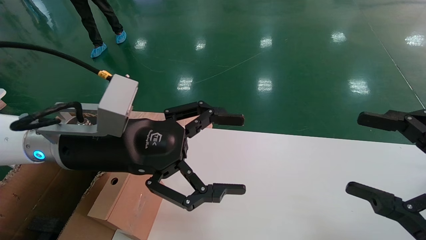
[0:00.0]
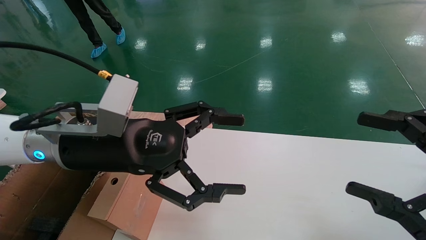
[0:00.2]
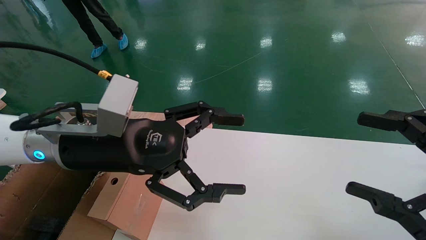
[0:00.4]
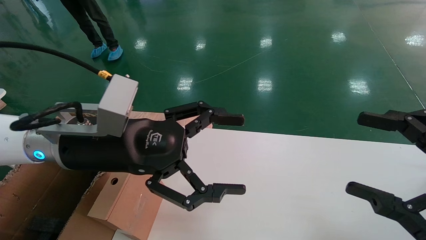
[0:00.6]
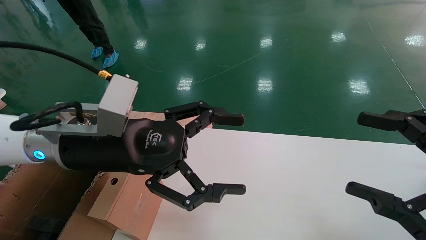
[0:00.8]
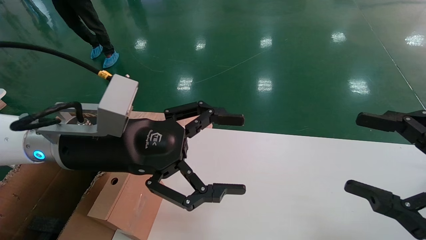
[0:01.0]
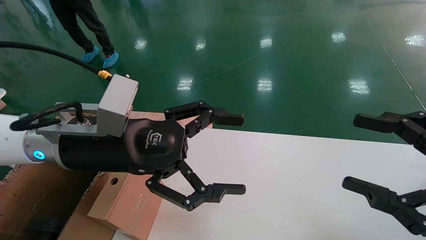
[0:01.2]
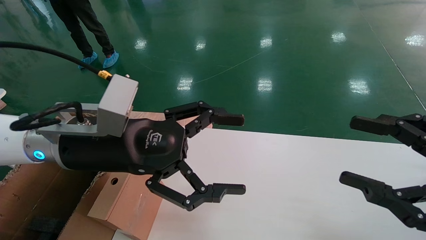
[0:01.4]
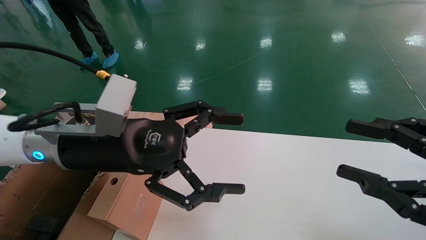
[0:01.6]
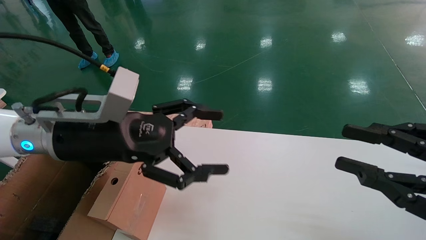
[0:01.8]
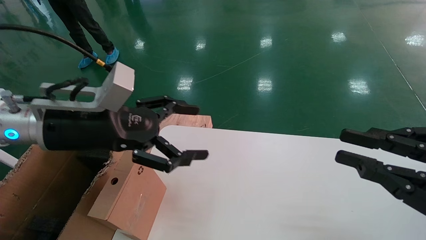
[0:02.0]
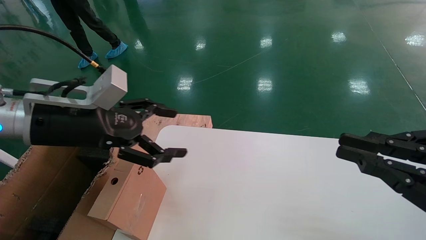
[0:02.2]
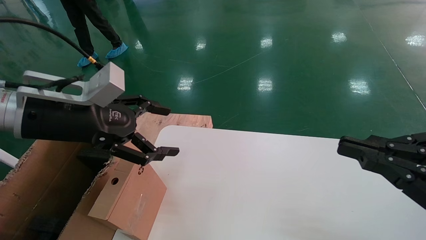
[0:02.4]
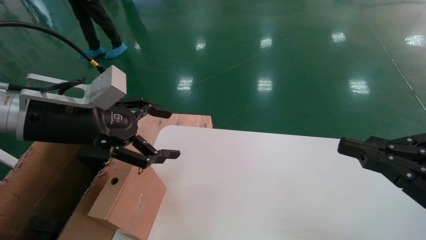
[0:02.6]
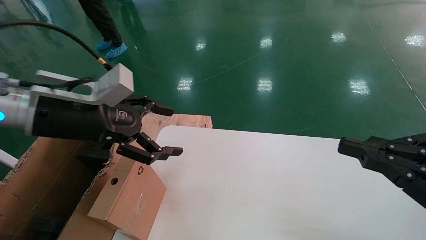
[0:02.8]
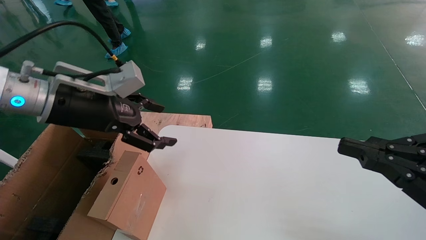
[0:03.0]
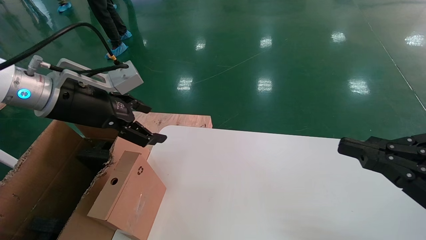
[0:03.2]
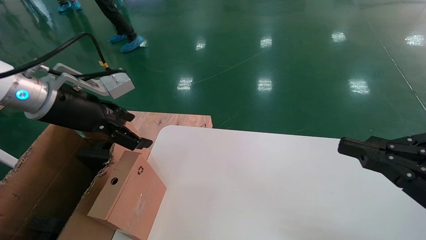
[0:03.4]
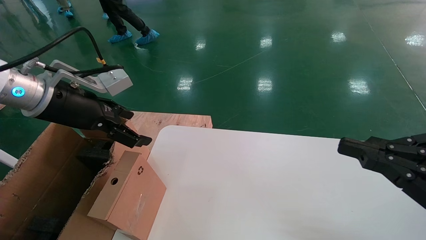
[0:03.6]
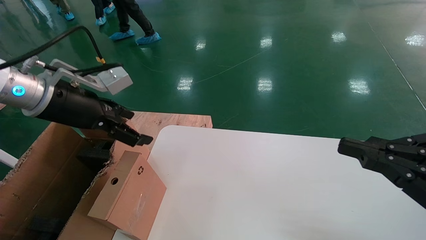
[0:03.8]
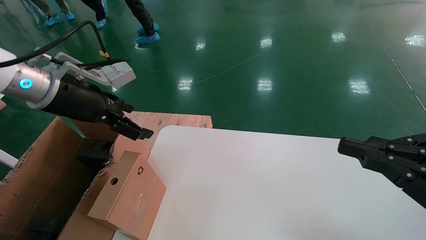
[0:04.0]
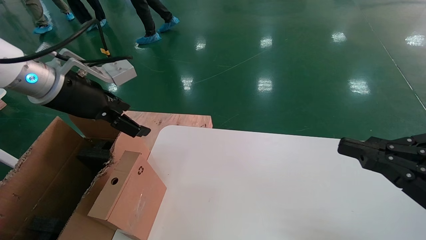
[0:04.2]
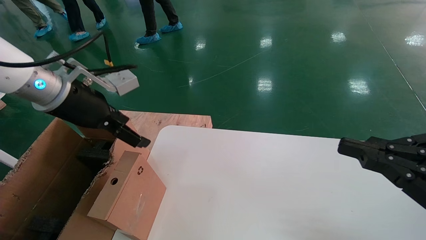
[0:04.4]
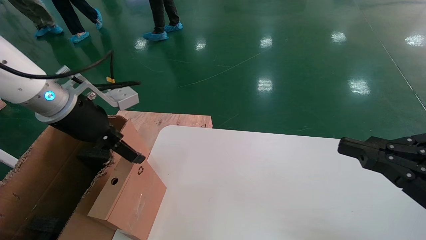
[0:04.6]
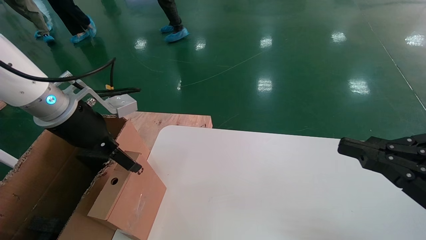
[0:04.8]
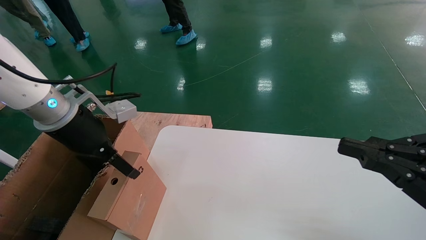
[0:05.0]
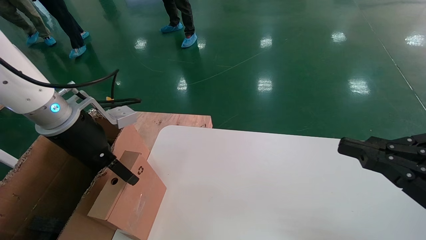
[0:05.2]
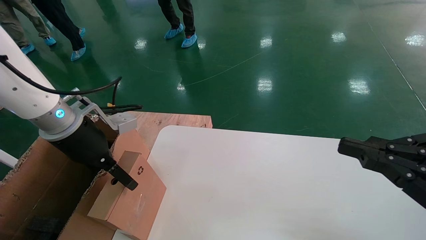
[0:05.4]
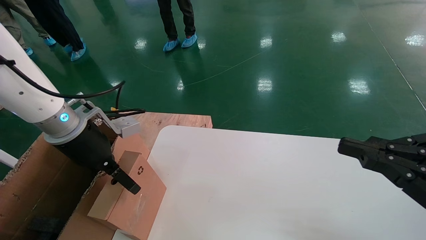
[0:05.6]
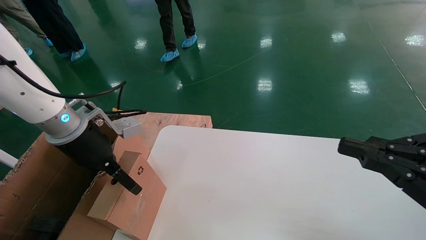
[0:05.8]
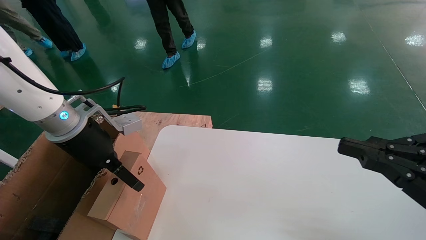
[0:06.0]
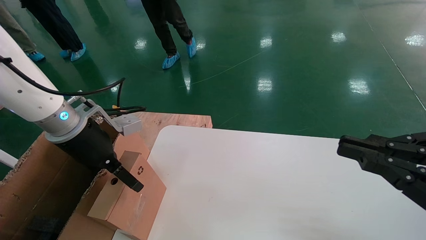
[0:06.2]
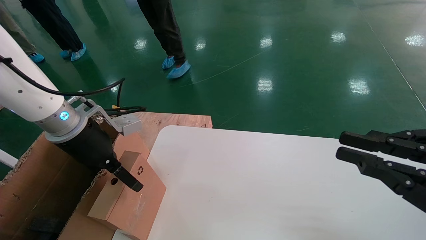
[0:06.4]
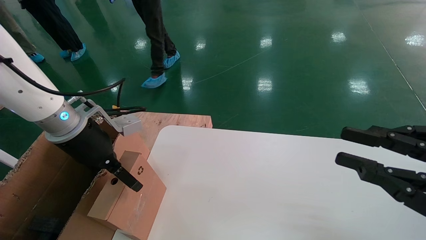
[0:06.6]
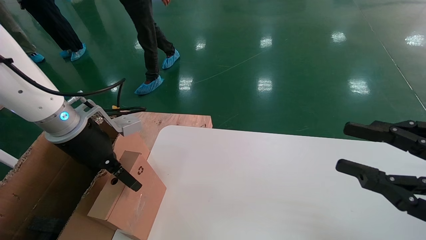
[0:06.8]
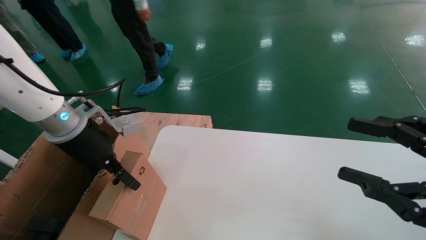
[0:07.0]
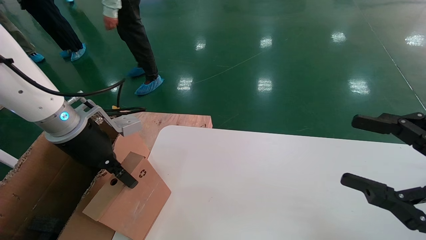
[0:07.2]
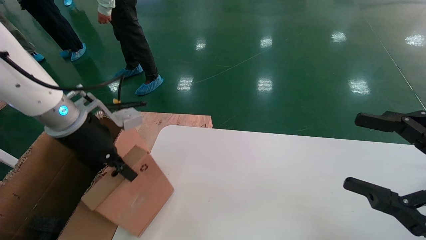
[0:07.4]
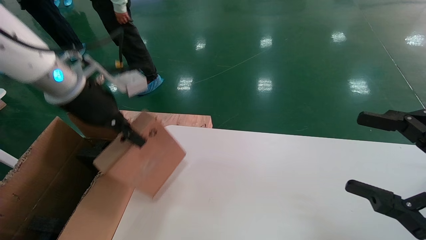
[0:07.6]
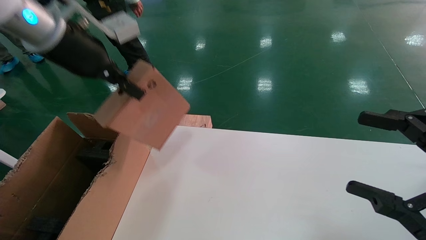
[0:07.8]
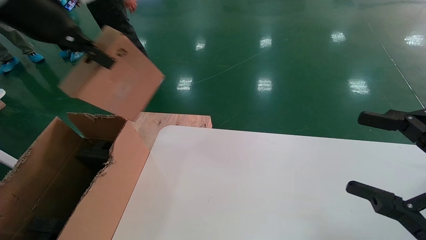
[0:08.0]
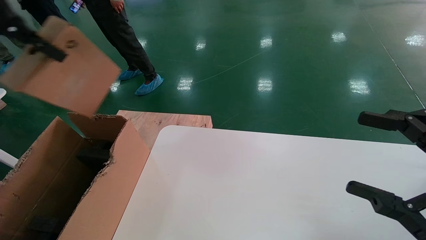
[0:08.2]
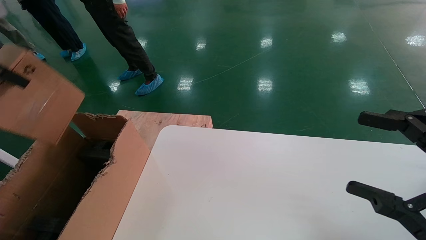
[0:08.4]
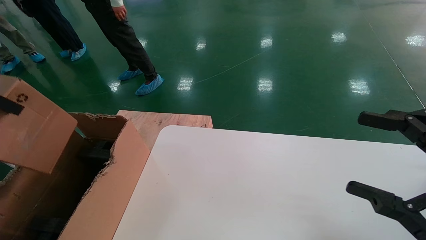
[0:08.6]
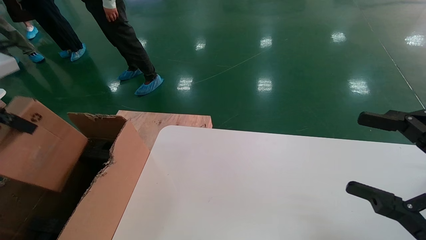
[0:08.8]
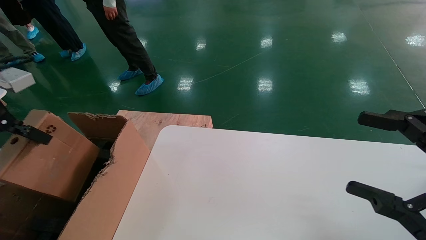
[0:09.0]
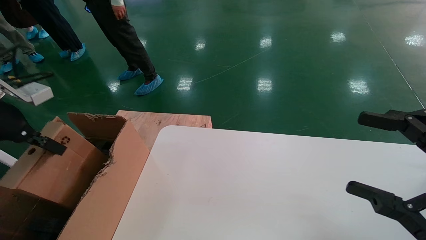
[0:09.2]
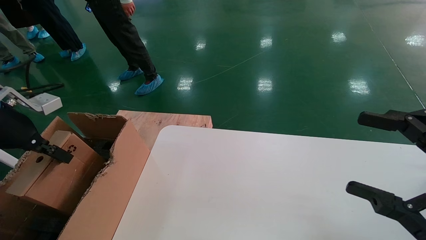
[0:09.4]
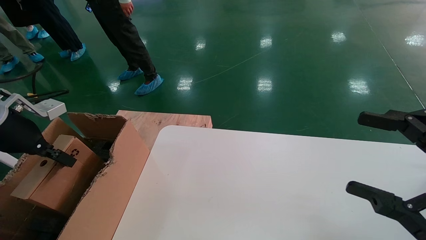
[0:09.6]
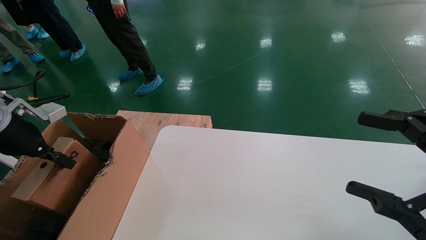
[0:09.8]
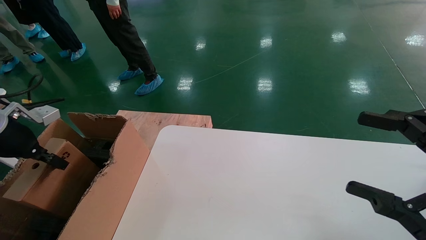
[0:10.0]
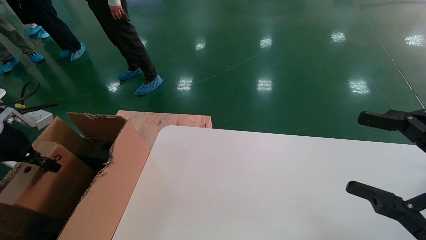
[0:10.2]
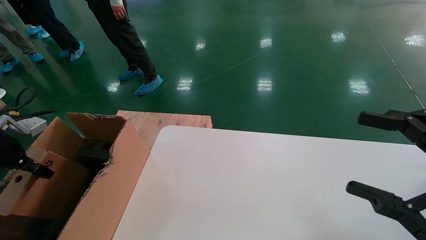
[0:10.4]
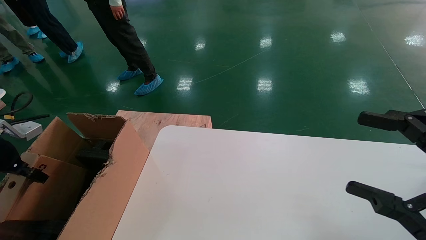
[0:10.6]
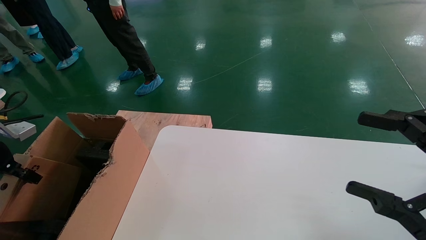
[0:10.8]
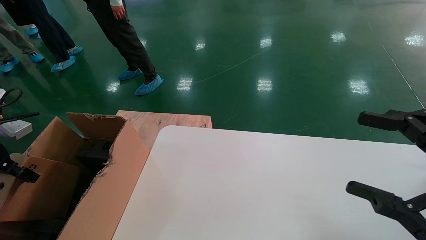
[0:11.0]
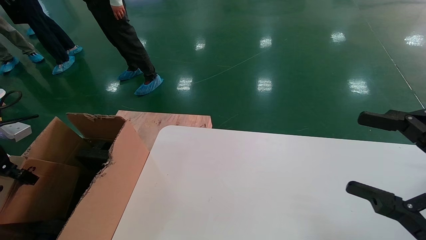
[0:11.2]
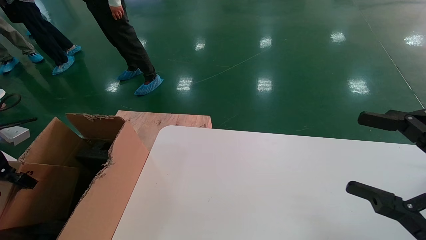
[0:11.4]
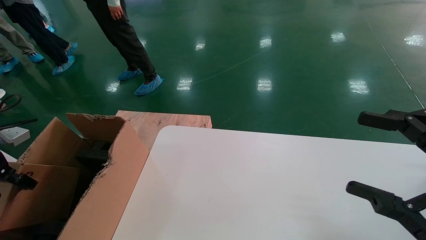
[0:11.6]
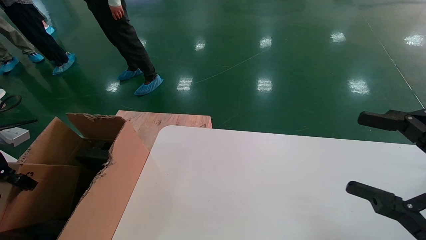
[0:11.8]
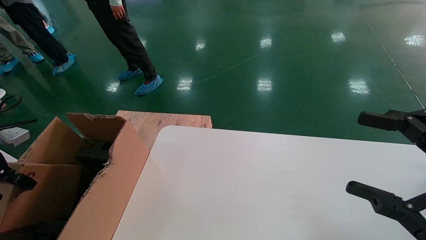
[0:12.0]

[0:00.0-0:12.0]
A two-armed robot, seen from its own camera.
Task of the whole recording: place the small box on the table into the large box on the left.
Step, 0:02.0 to 0:07.4: Pick up the mouse and the power cord paper box.
0:00.0 to 0:01.6: Both grippers stay put.
0:01.6 to 0:03.0: The right gripper closes its fingers. The left gripper is displaced to the left by about 10 cm.
0:04.4 to 0:06.0: The left gripper is displaced downward by roughly 5 cm.
0:06.0 to 0:07.6: The right gripper opens its fingers, while the left gripper goes roughly 10 cm upward, and closes.
0:07.6 to 0:09.0: The left gripper heads to the left and backward, covering roughly 20 cm.
0:09.0 to 0:10.4: The left gripper goes approximately 15 cm downward and to the left.
0:10.4 to 0:12.0: The grippers move only a little.

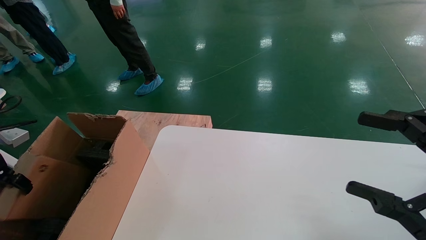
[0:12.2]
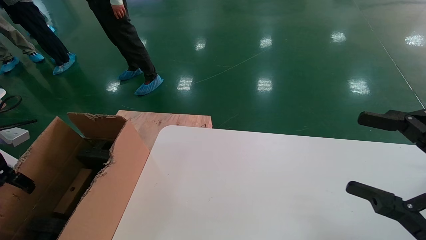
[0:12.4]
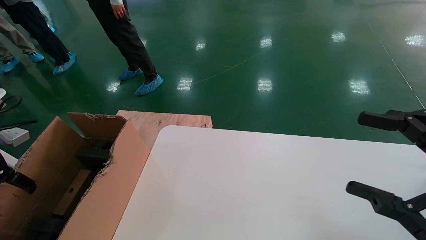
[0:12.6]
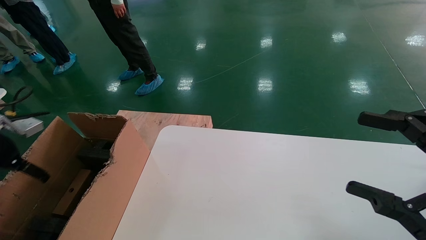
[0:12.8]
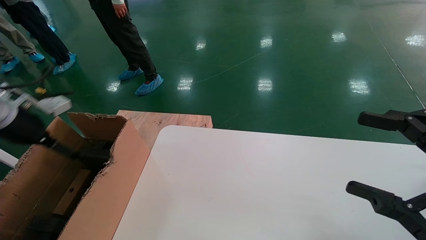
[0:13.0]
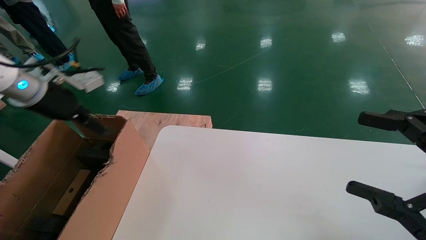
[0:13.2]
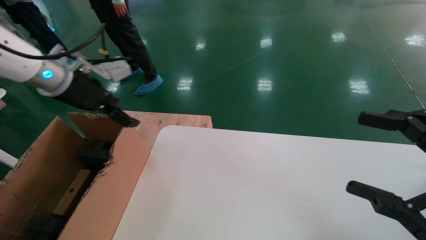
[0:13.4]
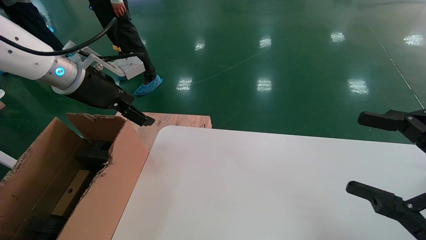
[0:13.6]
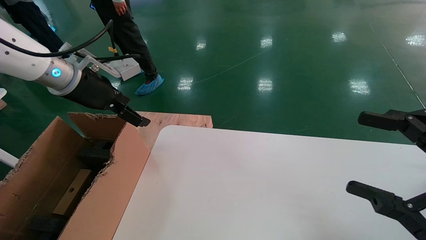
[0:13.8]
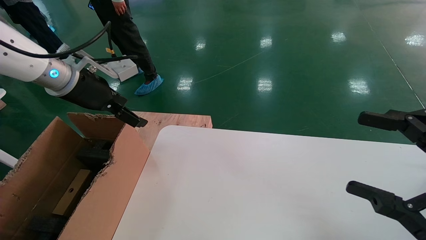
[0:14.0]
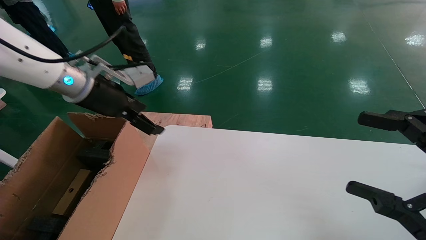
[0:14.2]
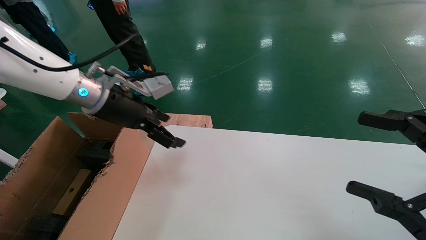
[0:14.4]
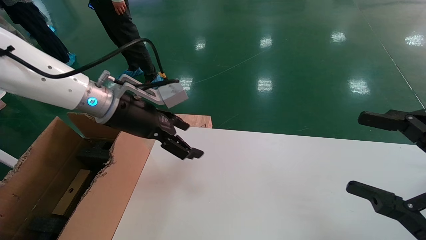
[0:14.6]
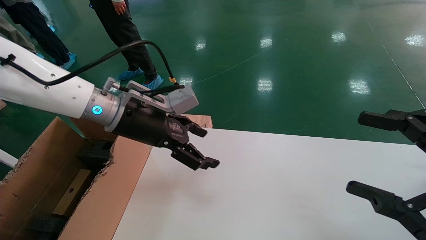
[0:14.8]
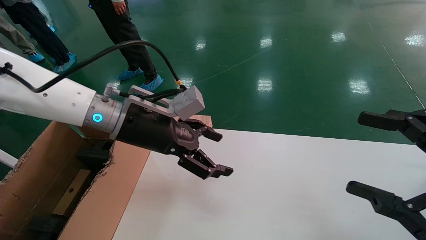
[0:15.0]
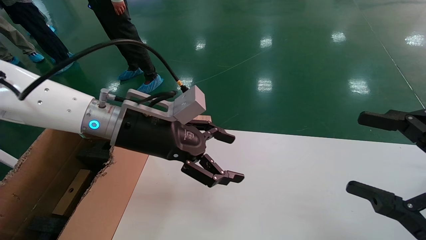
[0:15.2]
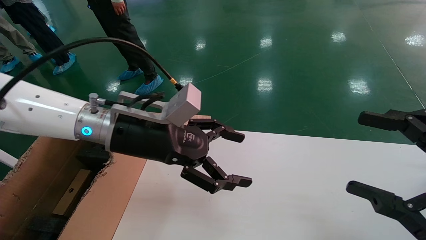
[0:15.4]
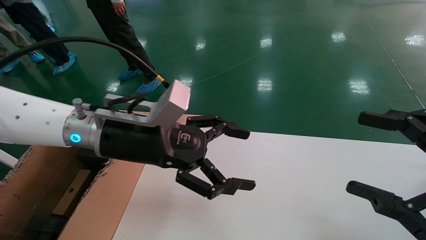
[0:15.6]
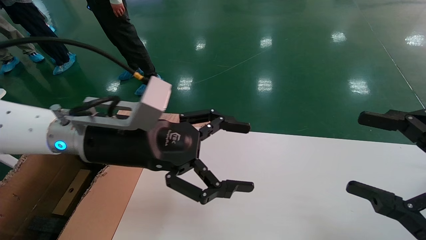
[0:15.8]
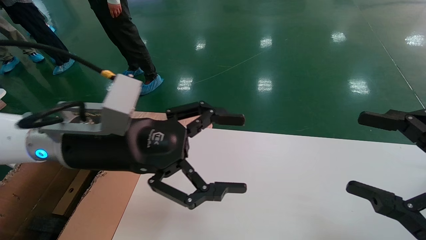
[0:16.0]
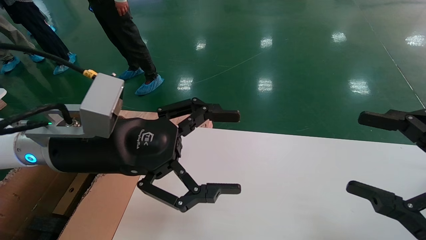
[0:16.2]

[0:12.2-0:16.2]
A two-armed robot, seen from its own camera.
Task of the whole recording: place the small box on the table into the large box on the left.
0:12.2 to 0:13.6: The left gripper shifts roughly 25 cm to the right, upward and forward, and opens its fingers.
0:13.6 to 0:14.8: The left gripper shifts approximately 15 cm to the right and downward.
0:14.8 to 0:16.2: The left gripper goes roughly 10 cm backward.
